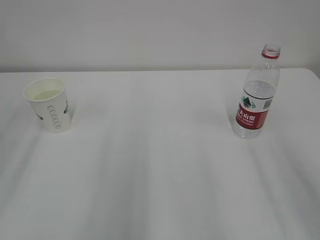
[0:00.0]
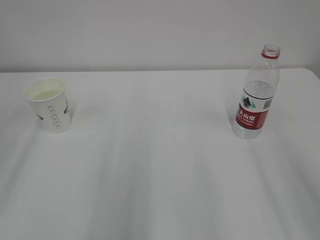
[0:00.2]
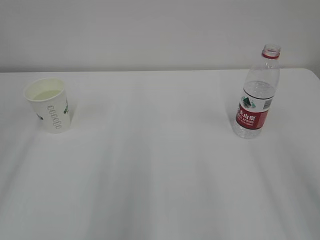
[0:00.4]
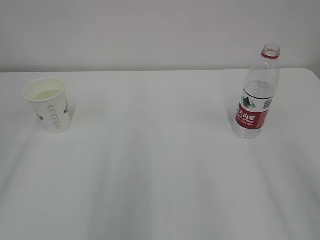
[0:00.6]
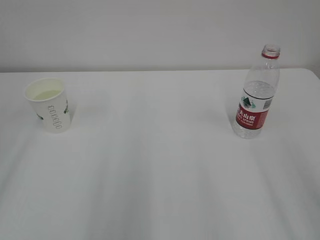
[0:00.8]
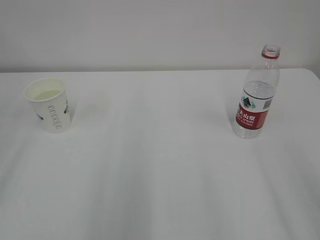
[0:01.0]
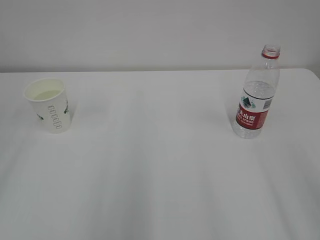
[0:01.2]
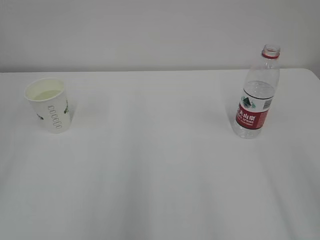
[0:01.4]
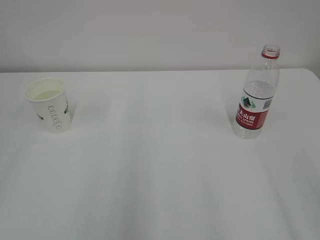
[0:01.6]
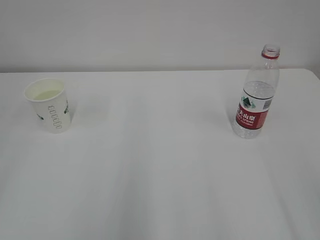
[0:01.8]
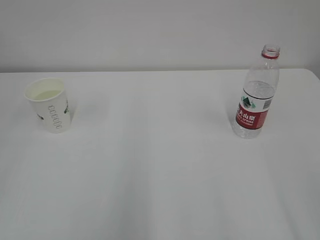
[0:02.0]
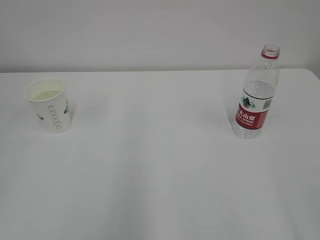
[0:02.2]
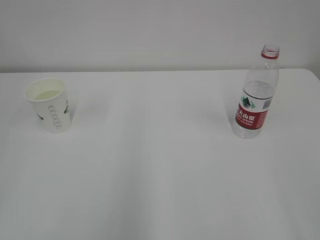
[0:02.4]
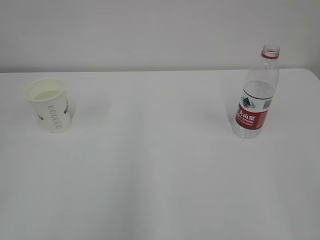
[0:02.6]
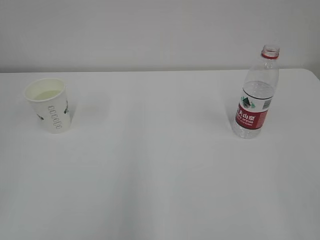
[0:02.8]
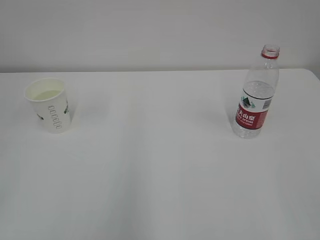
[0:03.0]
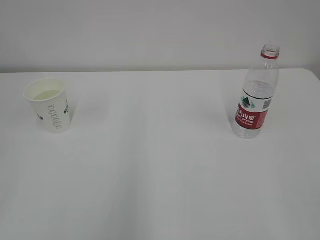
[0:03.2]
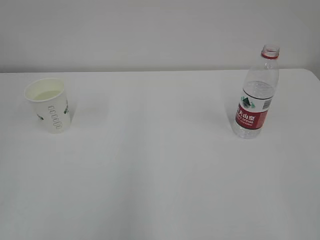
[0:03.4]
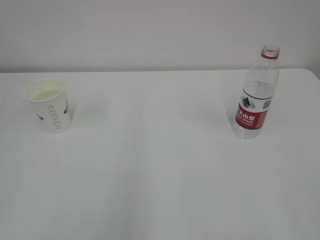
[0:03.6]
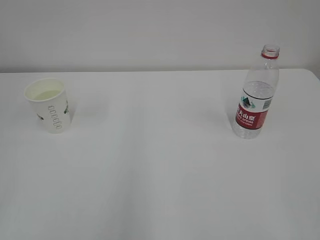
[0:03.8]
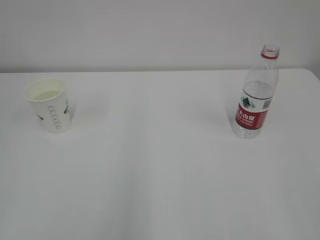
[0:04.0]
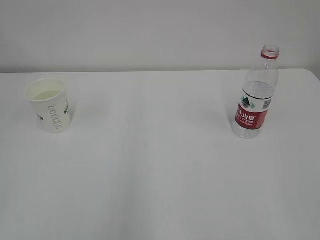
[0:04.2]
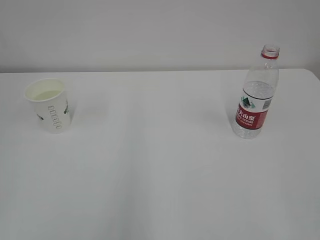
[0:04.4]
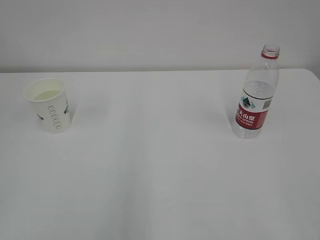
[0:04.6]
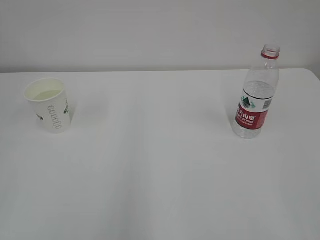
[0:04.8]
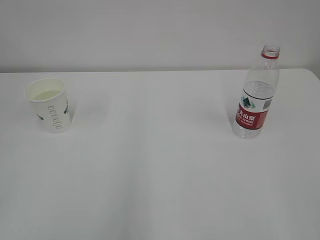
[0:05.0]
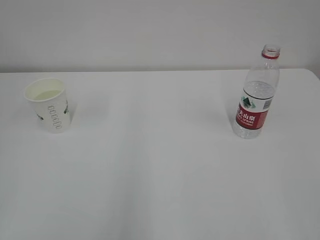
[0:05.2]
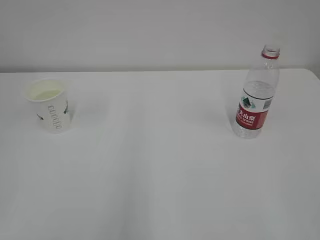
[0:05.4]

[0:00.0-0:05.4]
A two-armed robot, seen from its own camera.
0:04.0 to 0:05.4: Neither gripper changes place.
